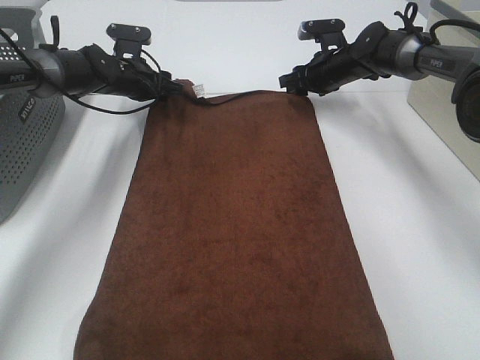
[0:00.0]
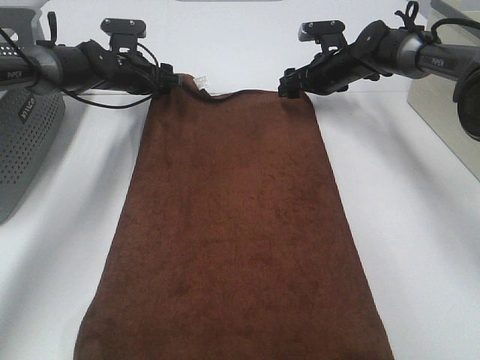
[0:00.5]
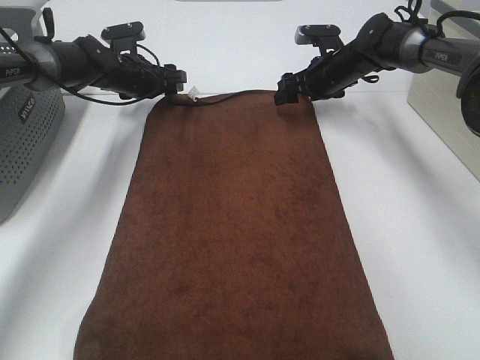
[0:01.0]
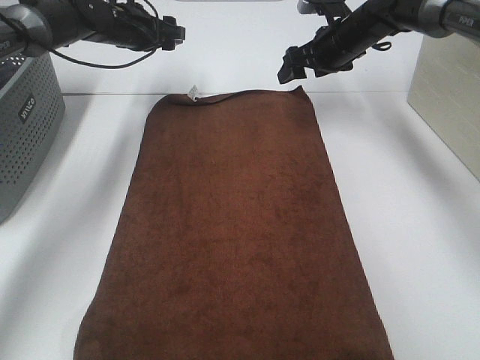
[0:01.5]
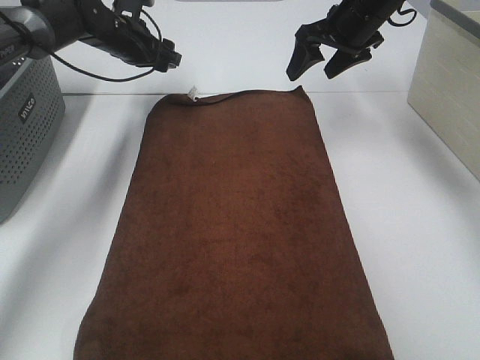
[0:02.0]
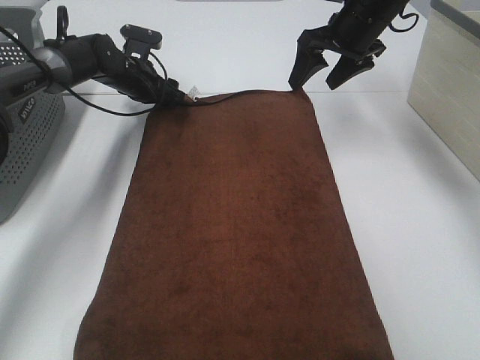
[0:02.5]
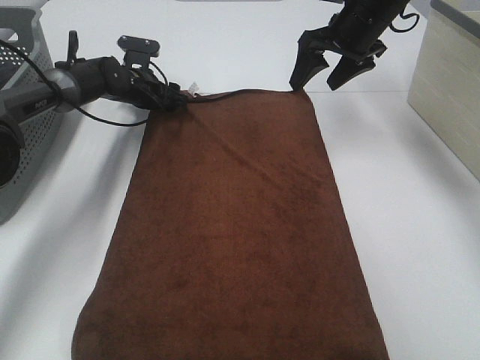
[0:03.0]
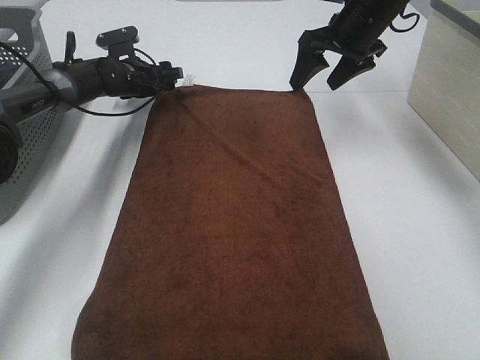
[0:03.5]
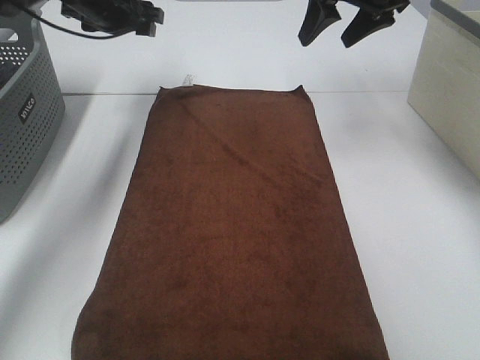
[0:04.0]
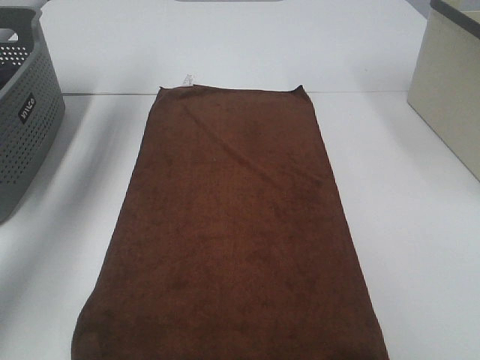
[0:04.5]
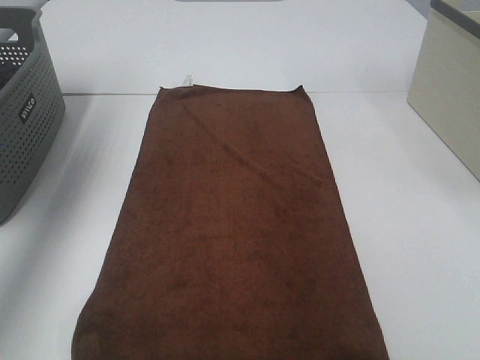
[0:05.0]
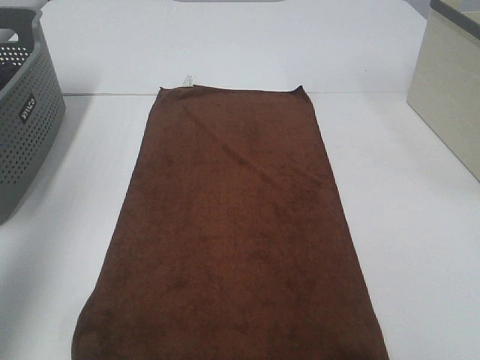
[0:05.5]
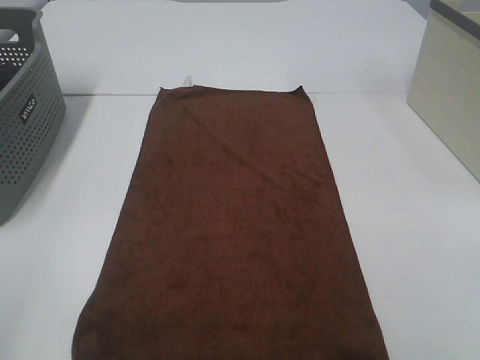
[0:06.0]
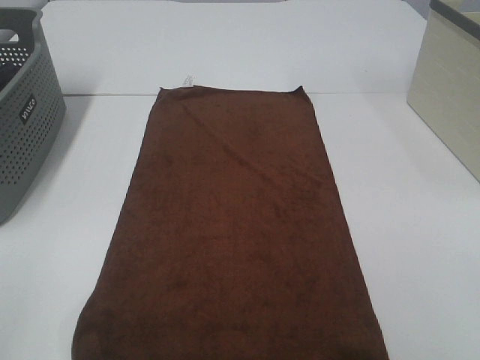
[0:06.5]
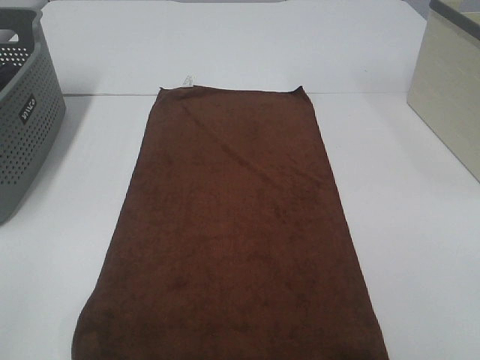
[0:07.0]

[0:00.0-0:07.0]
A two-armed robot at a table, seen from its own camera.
Task of the whole recording: Remove the towel and place it.
0:00.0 to 0:02.0: The left gripper moves upward, some 5 cm; the right gripper is displaced upward and backward by about 15 cm.
0:02.0 to 0:03.5: The left gripper goes approximately 10 cm downward.
0:03.5 to 0:05.0: The left gripper is displaced upward and backward by some 40 cm, while the right gripper travels backward, upward and to the right by roughly 30 cm.
0:05.0 to 0:07.0: The left gripper heads backward, covering about 40 cm.

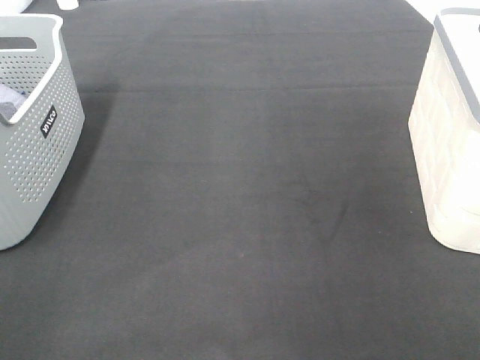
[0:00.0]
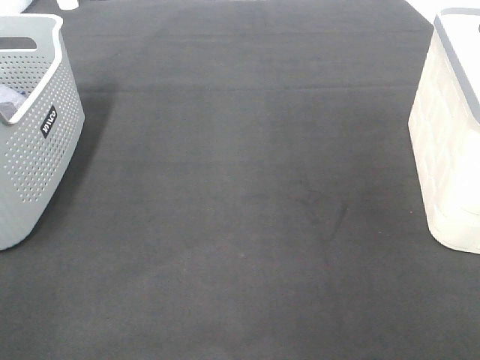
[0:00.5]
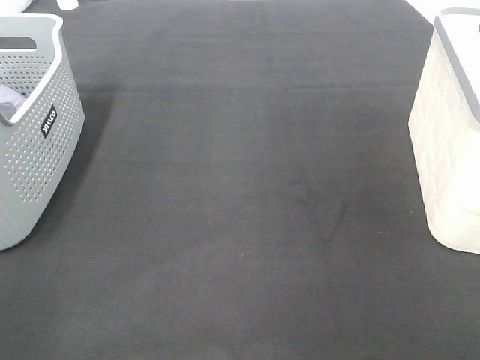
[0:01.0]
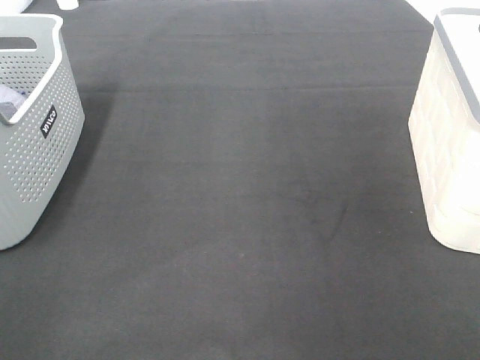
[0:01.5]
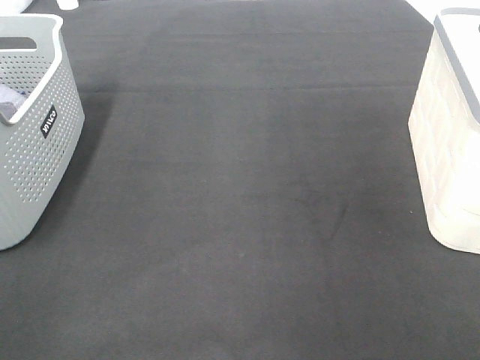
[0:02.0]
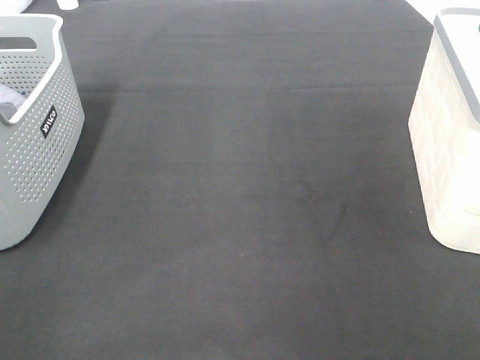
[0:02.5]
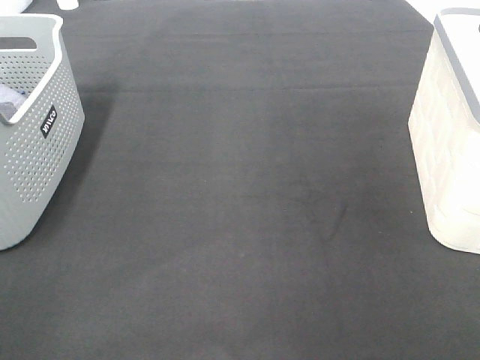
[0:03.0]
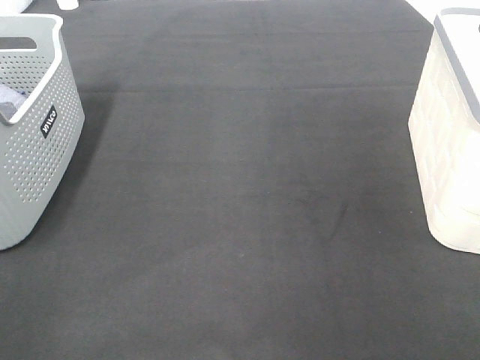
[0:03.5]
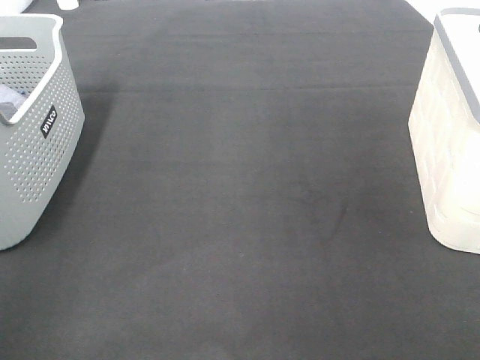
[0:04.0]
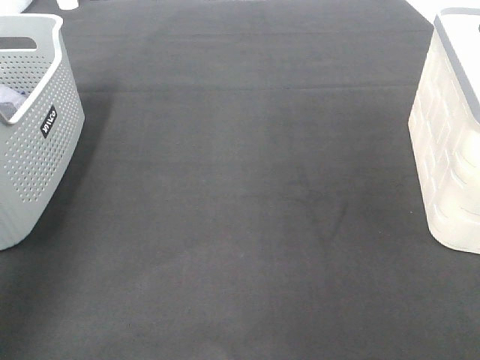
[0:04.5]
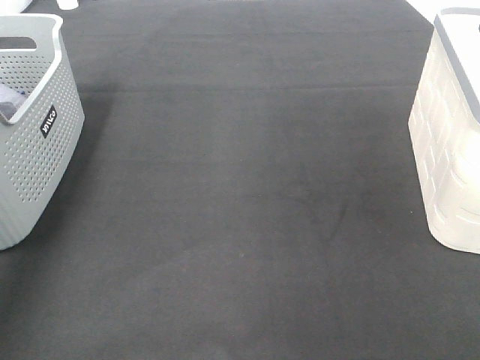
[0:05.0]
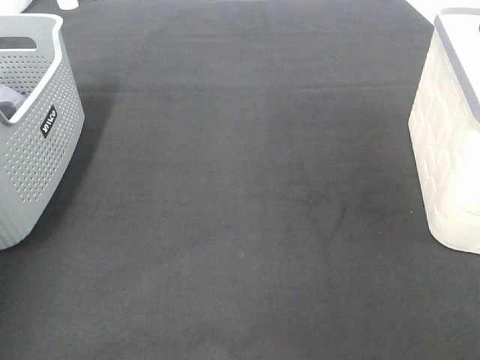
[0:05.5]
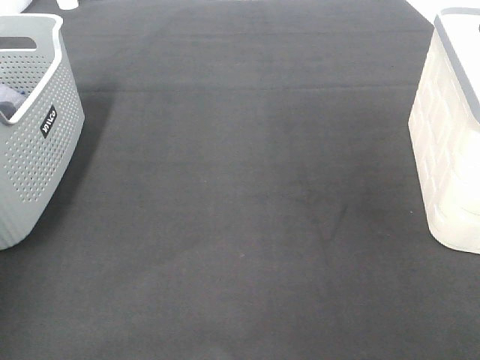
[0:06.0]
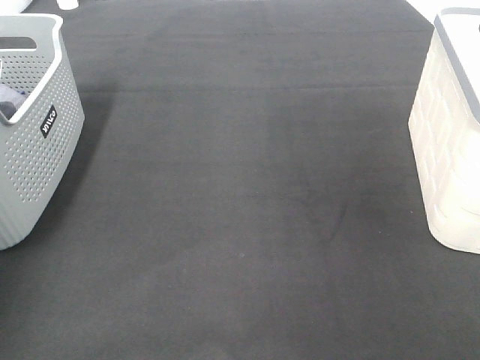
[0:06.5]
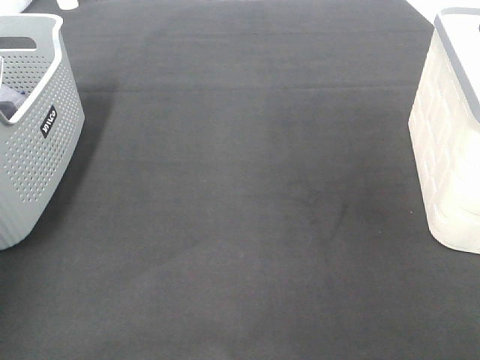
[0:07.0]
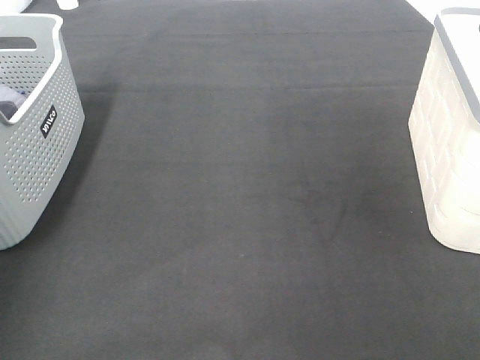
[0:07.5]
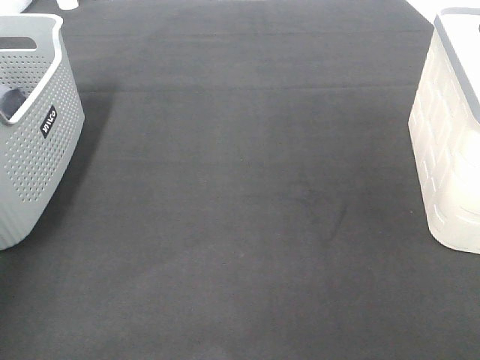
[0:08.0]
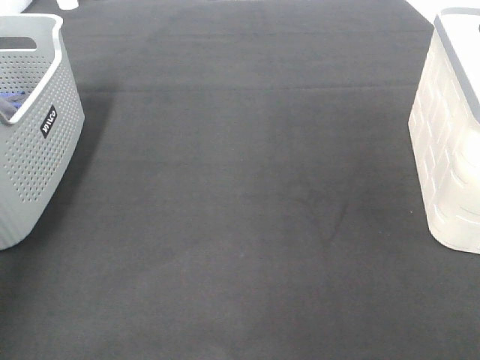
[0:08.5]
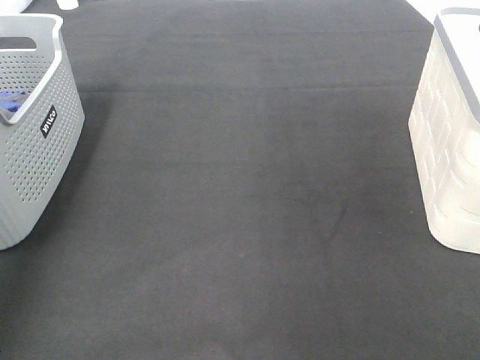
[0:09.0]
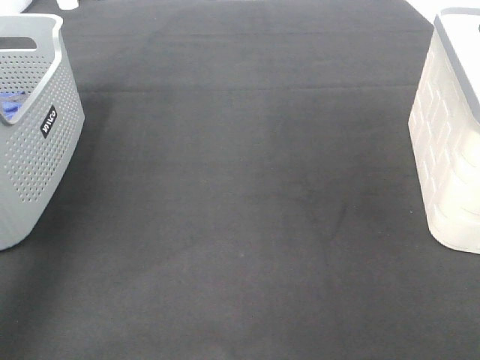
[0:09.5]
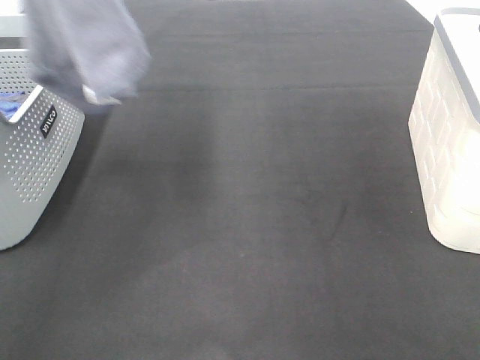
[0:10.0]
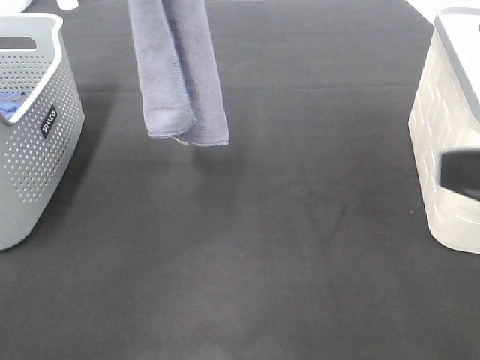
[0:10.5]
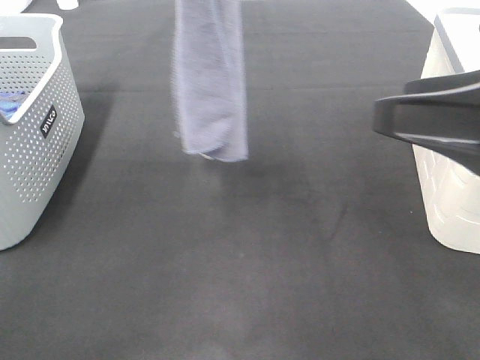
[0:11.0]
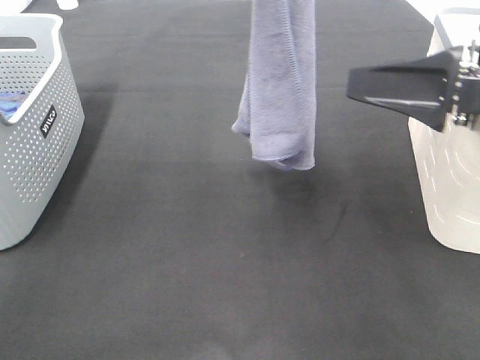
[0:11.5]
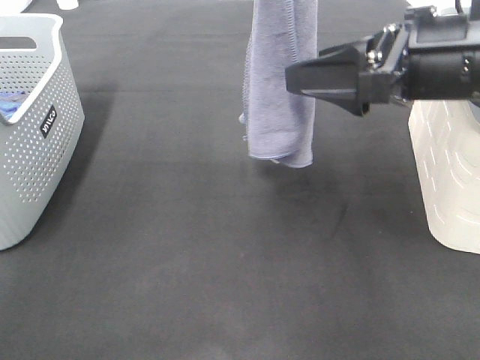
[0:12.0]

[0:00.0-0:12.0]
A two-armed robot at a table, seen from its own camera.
Task of the whole recording: Remove the towel and place it.
Step, 0:09.0 to 0:12.0: Right hand: grab a corner of the grey towel and straighten it.
0:00.0 to 0:02.0: Both grippers stay put.
0:08.0 to 0:10.0: The left gripper is displaced upward, to the right and backward by about 30 cm.
0:10.0 to 0:12.0: The left gripper shifts about 15 cm to the right and downward; the right gripper heads forward, covering approximately 20 cm.

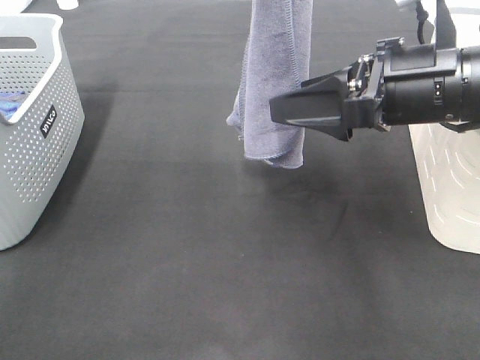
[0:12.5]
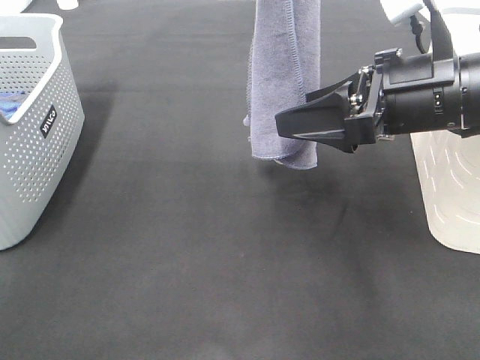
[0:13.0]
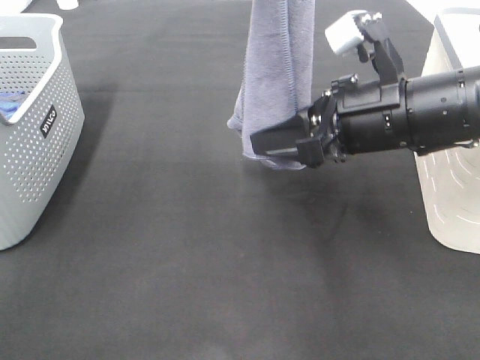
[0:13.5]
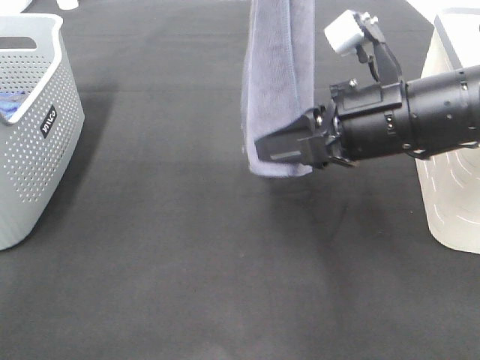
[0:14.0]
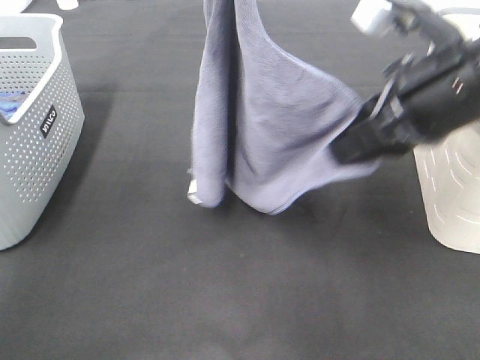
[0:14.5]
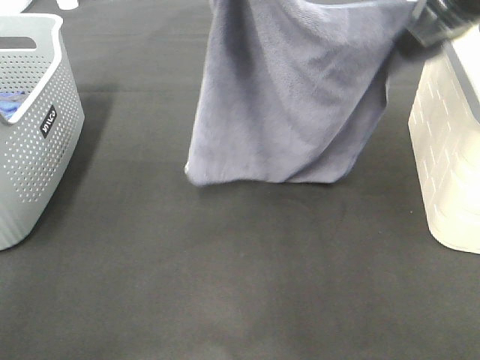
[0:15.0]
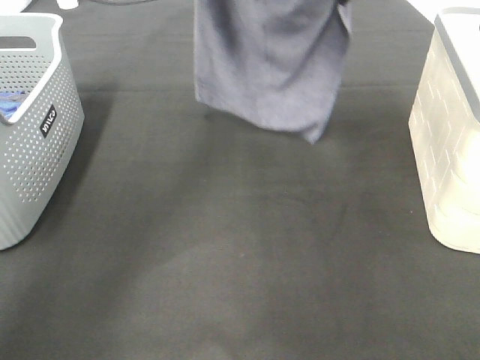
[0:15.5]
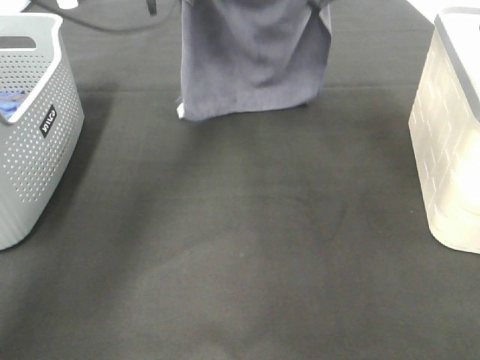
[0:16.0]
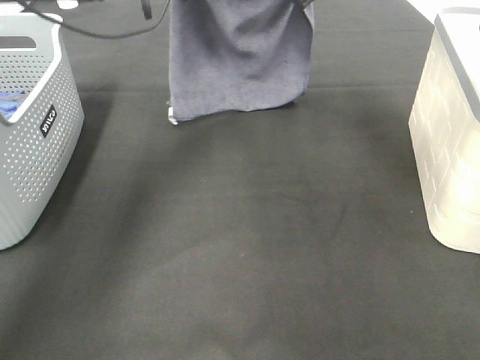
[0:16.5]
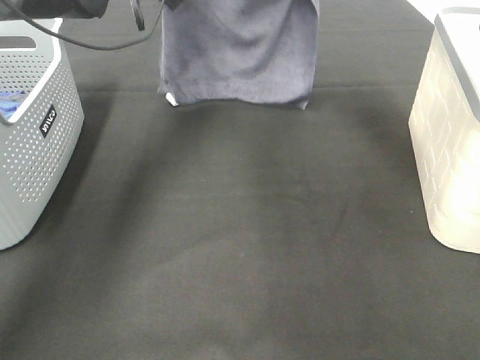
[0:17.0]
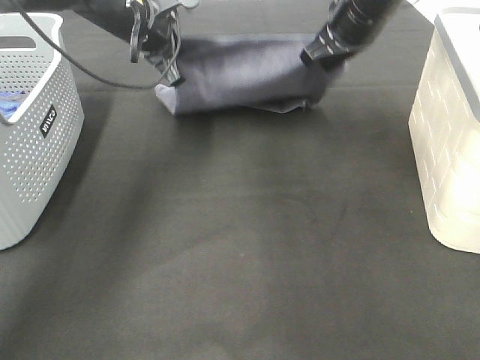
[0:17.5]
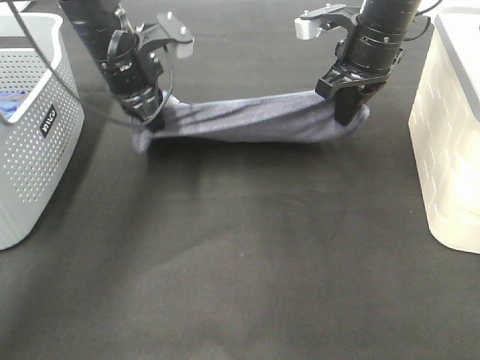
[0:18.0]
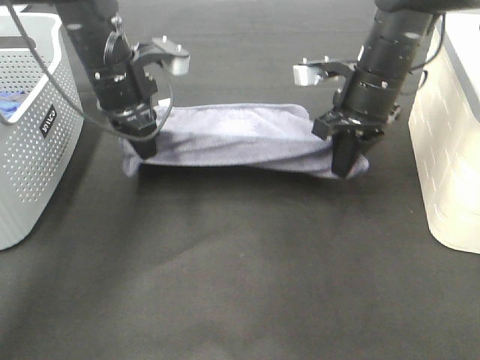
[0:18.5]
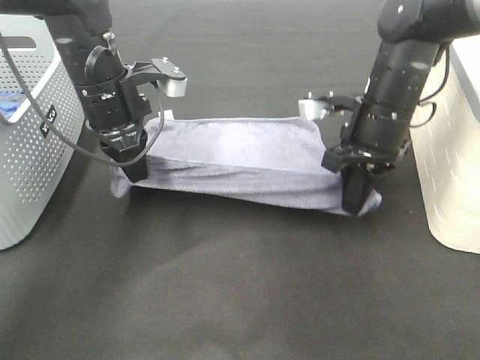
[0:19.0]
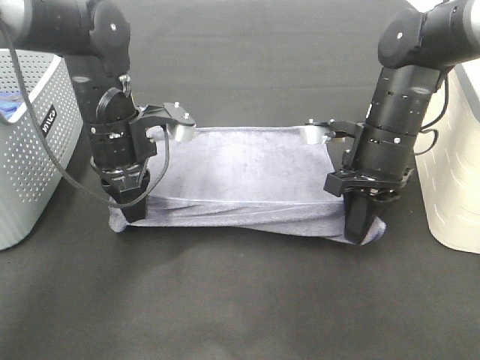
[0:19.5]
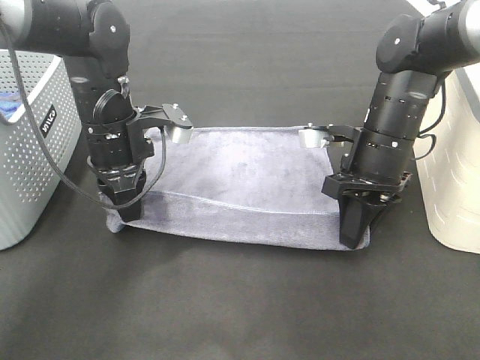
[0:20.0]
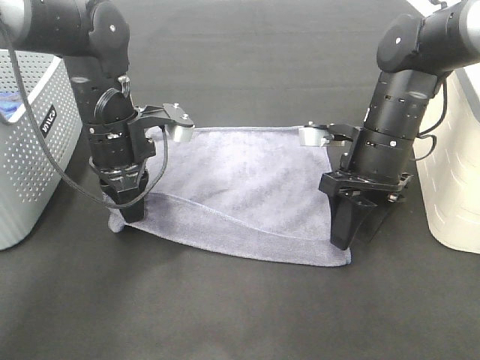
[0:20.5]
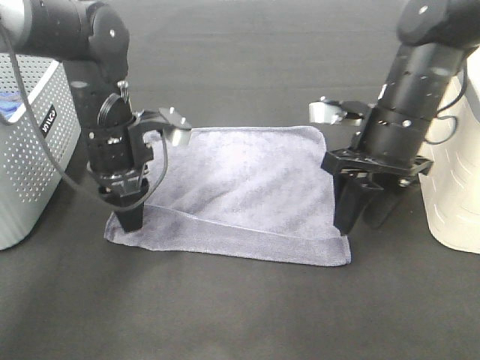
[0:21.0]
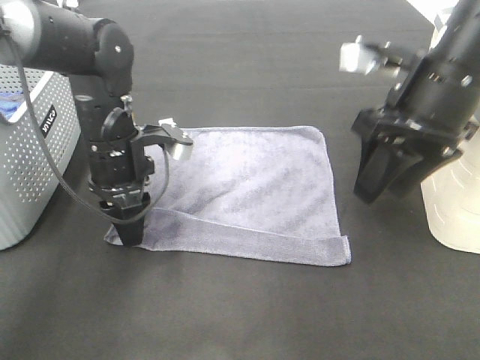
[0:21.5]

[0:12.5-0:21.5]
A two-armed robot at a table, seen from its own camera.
Task of the whole recording: Remove the towel and place it.
Step, 0:12.5 to 0:16.0: Right hand: spread the grey towel flat on the table.
Step, 0:12.5 to 0:17.0: Left hand: spread the grey towel flat on the table.
Step, 0:17.5 to 0:19.0: Left hand:adjust the gray towel.
0:12.5 to 0:14.5: The right gripper closes, while the left gripper ends up about 5 cm from where it was.
0:14.5 to 0:17.0: The right gripper travels forward by about 25 cm, while the left gripper travels forward, downward and to the left by roughly 25 cm.
0:17.0 to 0:19.5: Both grippers move backward and downward, roughly 20 cm.
0:19.5 to 0:21.5: The right gripper shifts about 15 cm upward and backward, and opens up.
